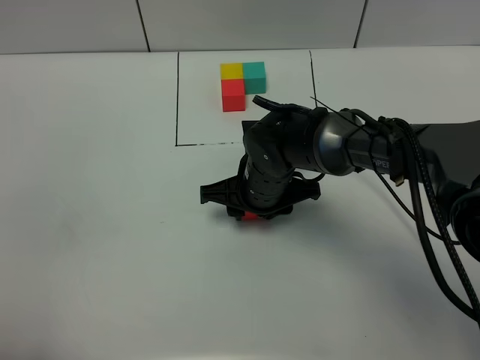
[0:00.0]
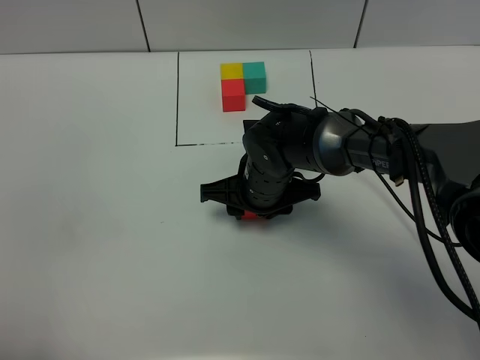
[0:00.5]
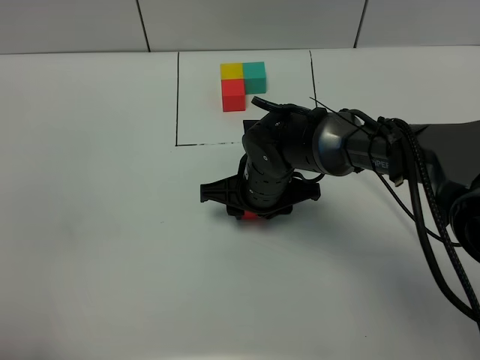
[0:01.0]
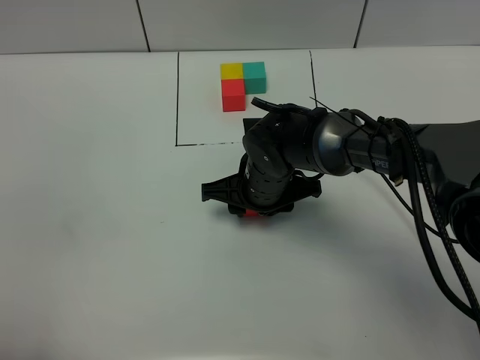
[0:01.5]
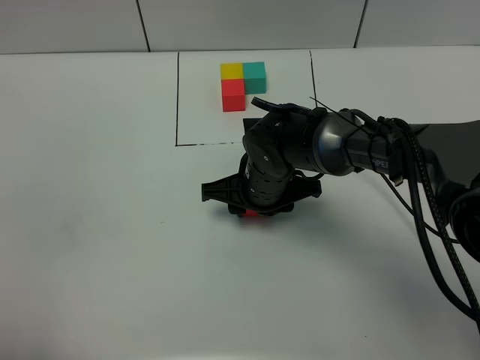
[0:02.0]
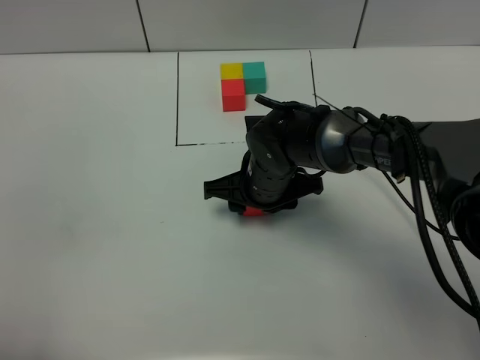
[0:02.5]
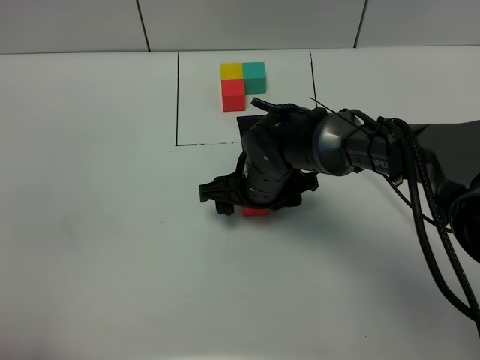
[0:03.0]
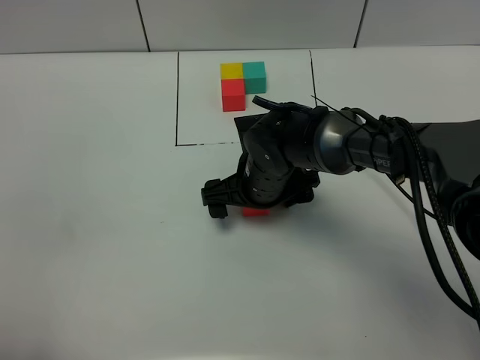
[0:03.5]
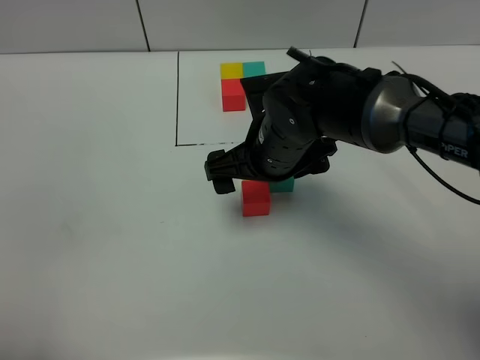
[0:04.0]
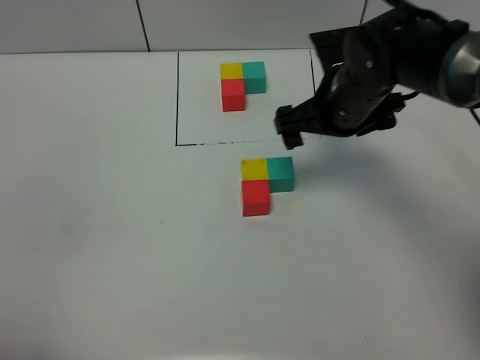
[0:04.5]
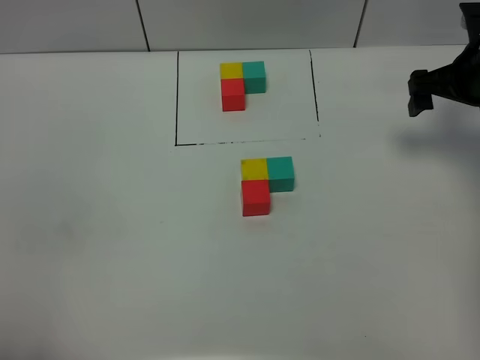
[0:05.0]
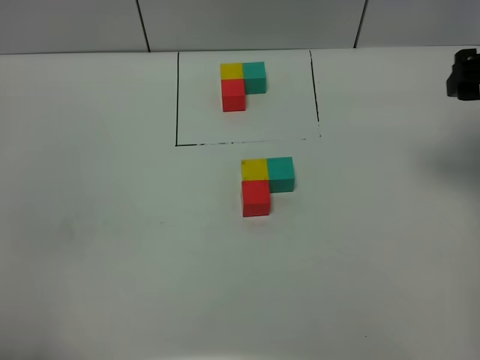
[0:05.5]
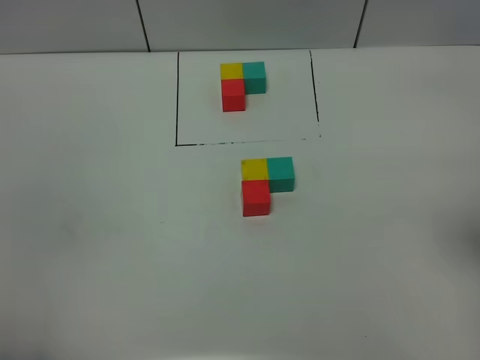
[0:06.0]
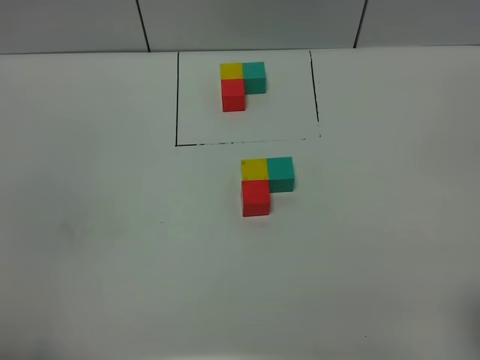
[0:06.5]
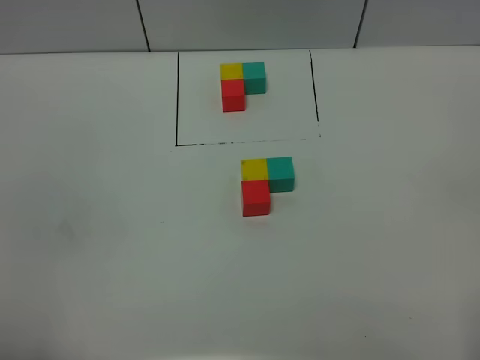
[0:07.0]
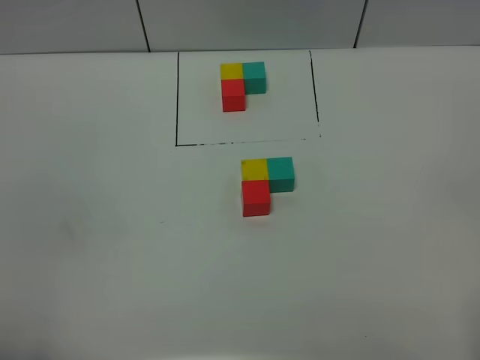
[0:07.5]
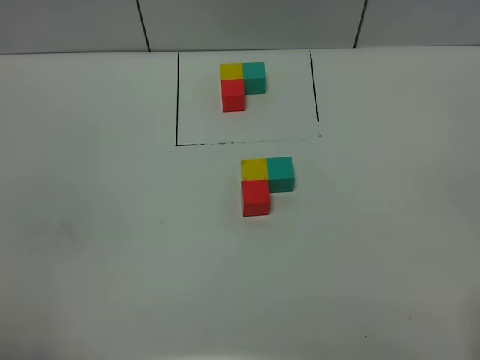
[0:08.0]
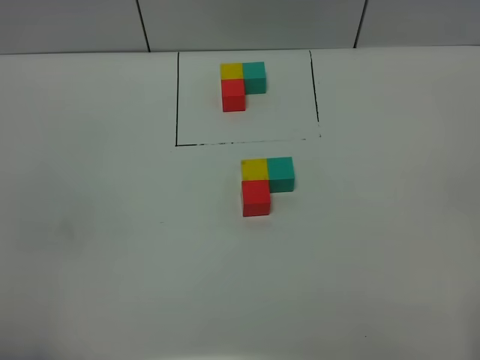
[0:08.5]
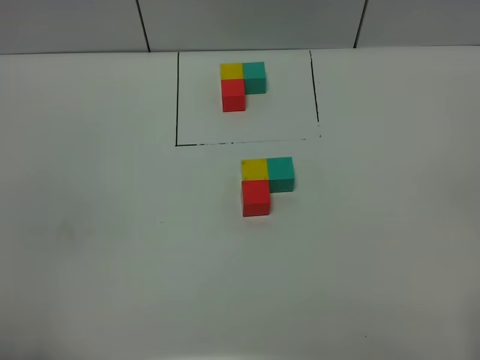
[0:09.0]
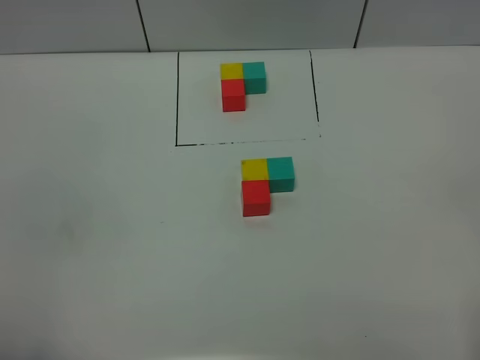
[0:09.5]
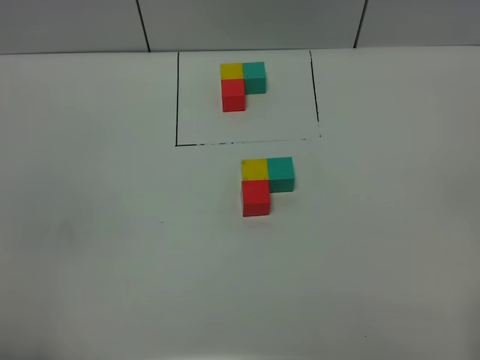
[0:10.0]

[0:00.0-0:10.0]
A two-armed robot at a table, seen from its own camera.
Task of the whole recording: According to the building block template in front, assemble the scattered blocks together.
Step, 0:00.0 to 0:03.0: Put the red build block on the behind of the yellow build block.
0:00.0 to 0:02.0: Both grippers stay put.
0:02.0 to 0:04.0: The right gripper shifts some 10 cm upward, and opens.
0:04.0 to 0:06.0: The right gripper shifts some 30 cm to the right, backward and upward.
0:08.0 to 0:10.0: Both grippers stay about where they are.

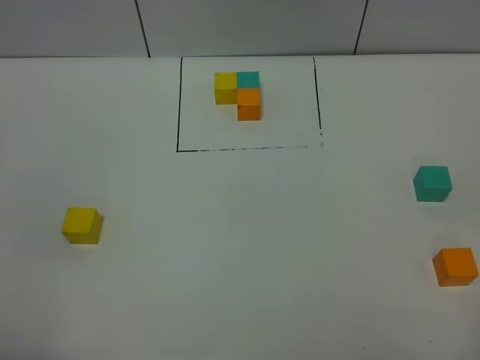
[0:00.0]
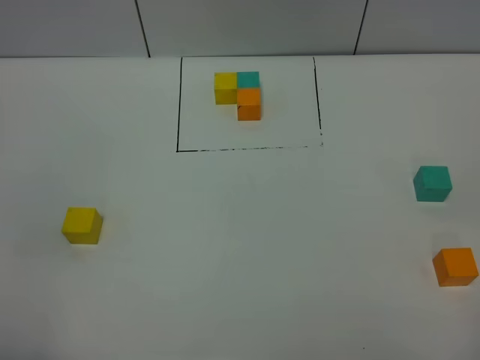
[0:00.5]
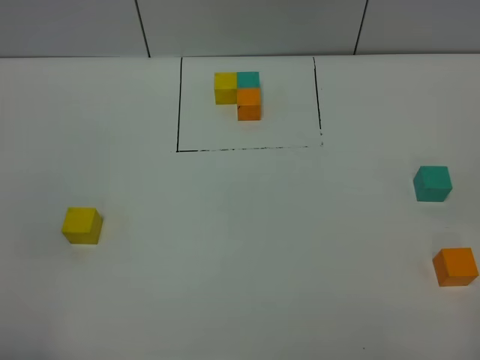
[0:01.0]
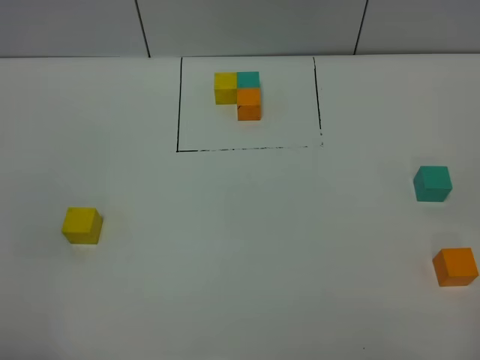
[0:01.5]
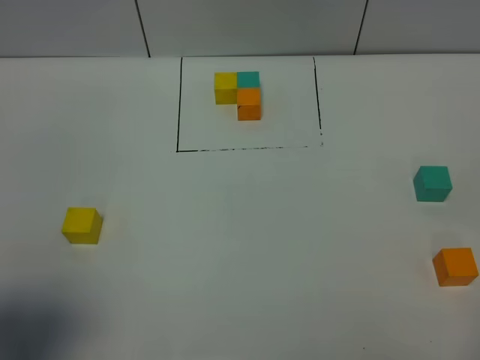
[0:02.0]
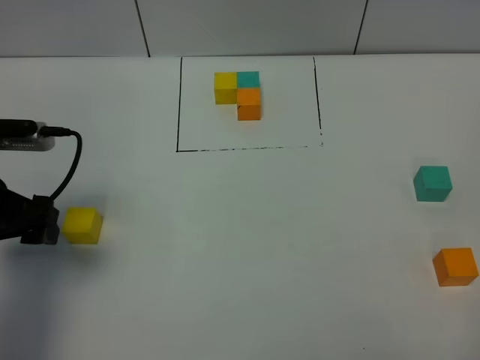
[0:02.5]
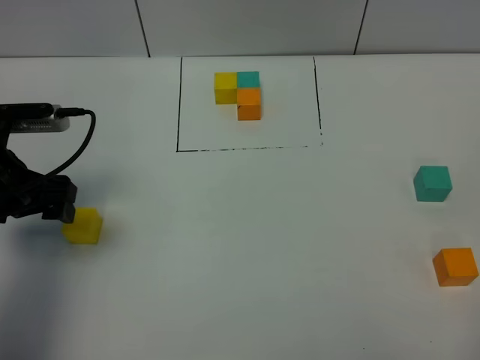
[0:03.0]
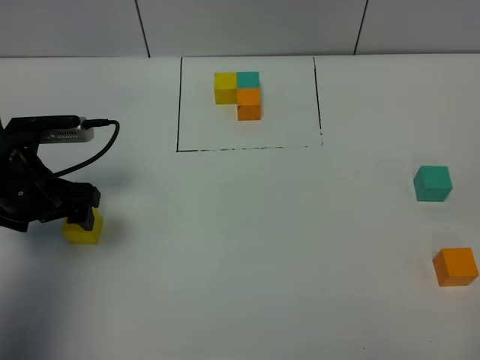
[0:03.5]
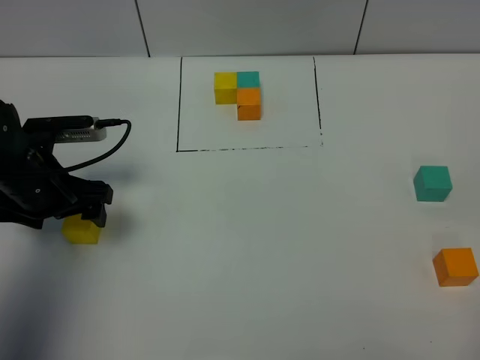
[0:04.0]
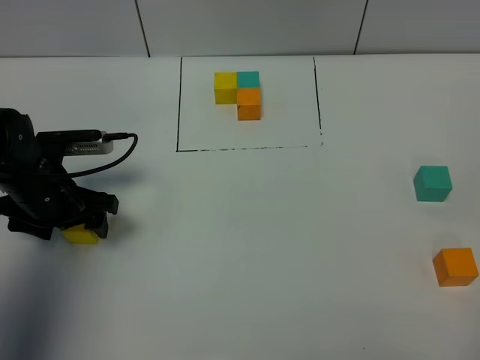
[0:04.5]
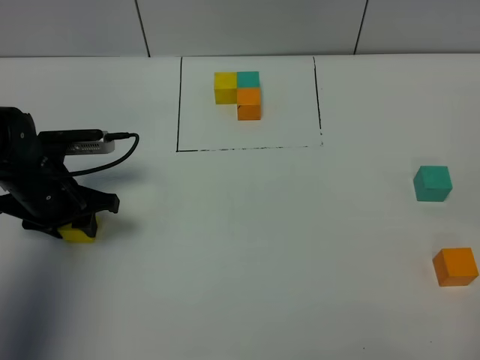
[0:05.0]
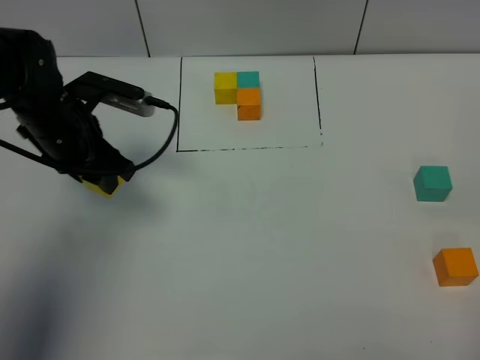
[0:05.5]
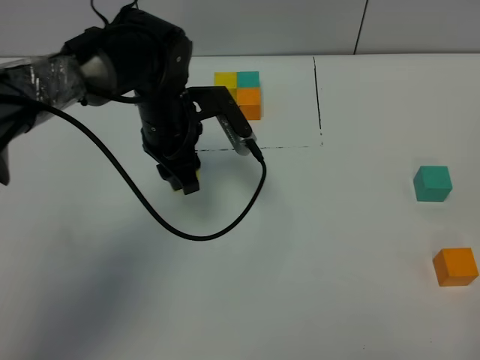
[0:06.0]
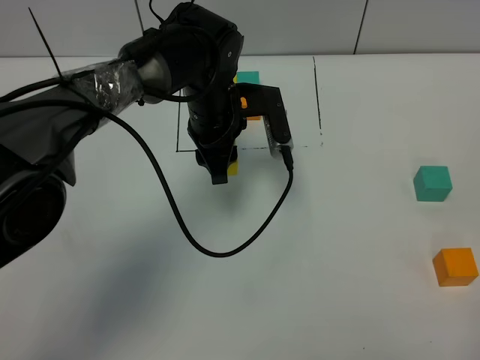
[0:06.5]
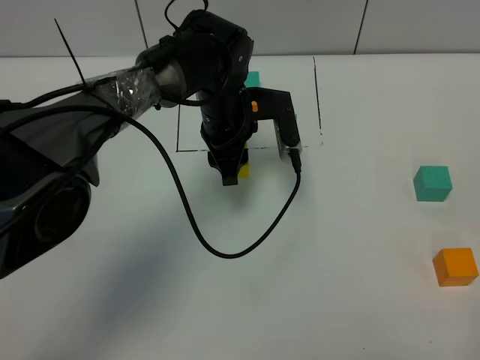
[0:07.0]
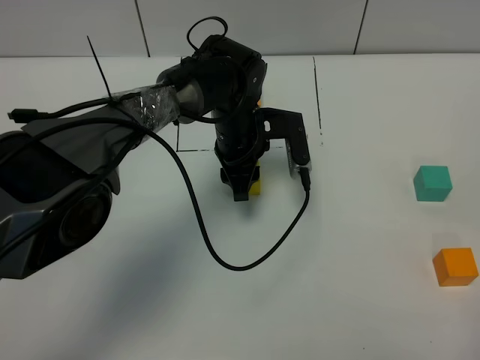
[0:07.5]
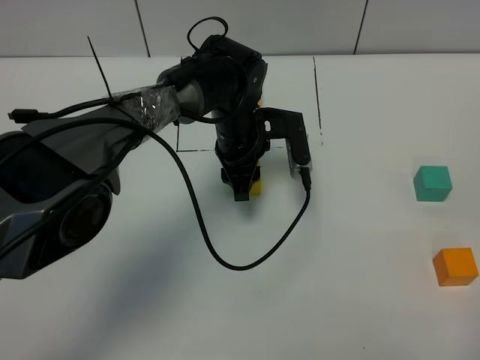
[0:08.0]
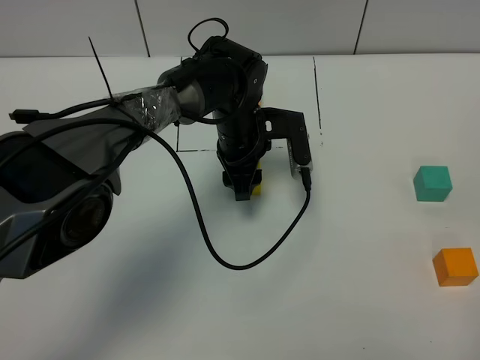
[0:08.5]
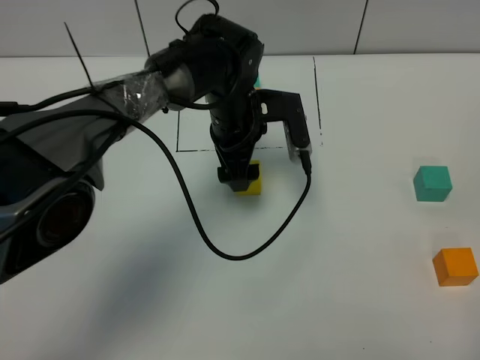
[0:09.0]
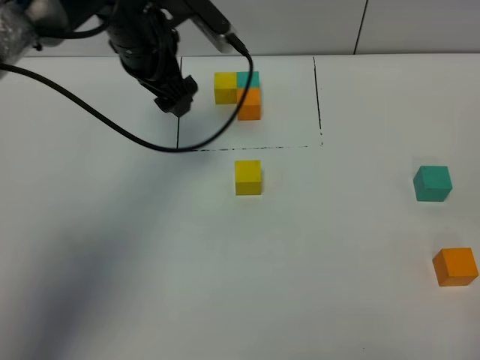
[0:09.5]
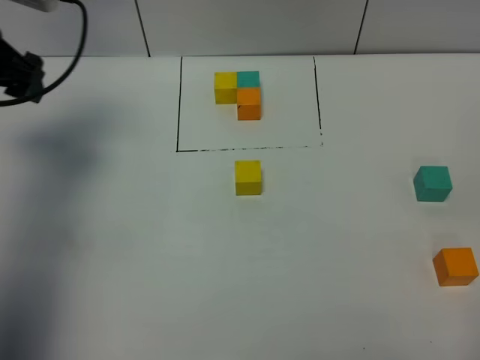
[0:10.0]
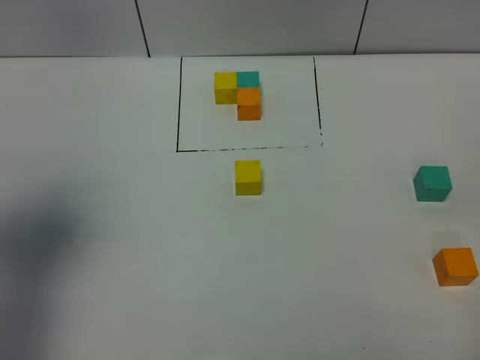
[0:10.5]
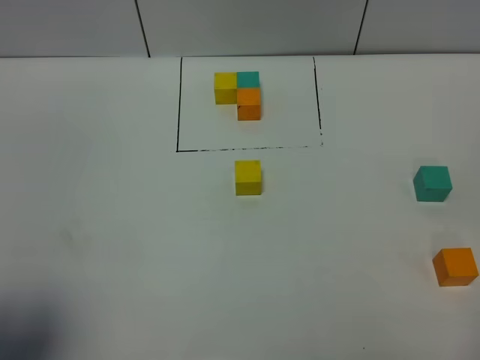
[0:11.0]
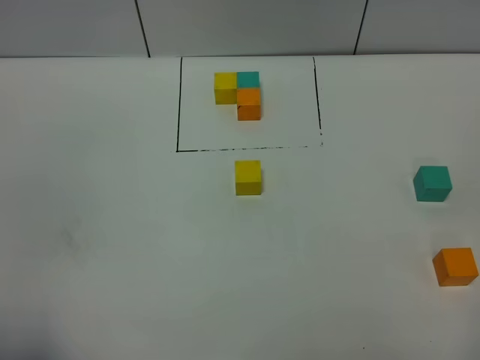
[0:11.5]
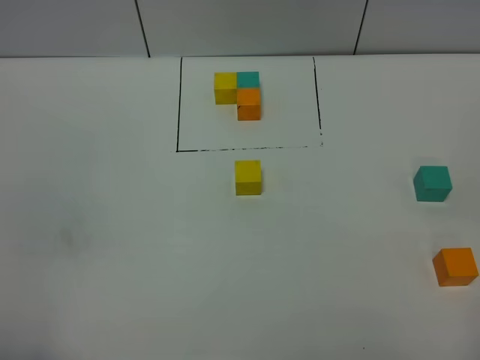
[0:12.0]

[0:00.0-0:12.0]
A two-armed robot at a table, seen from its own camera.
Task of the whole recording: According to the building block template in front, assemble the scattered blocks together.
Step, 0:00.0 to 0:08.0: Put the yellow build block in the center of the table.
0:00.0 to 0:02.0: The left gripper travels forward by about 10 cm.
0:02.0 to 0:04.0: The left gripper moves forward and downward, about 25 cm.
0:04.0 to 0:06.0: The left gripper is displaced to the right and forward by about 20 cm, and closes up.
0:06.0 to 0:08.0: The left gripper heads to the right and downward, covering approximately 10 cm.
0:08.0 to 0:10.0: The left gripper moves to the left and upward, roughly 35 cm, and opens.
0:10.0 to 0:12.0: The left gripper moves backward, roughly 40 cm.

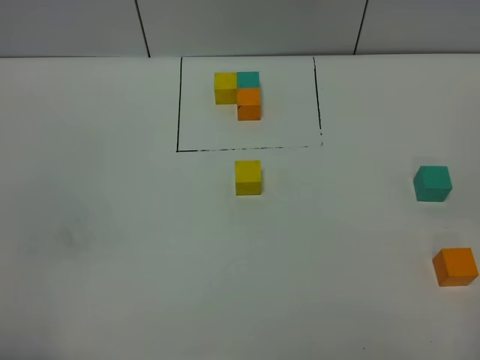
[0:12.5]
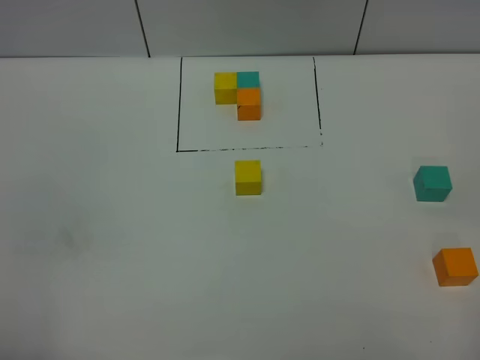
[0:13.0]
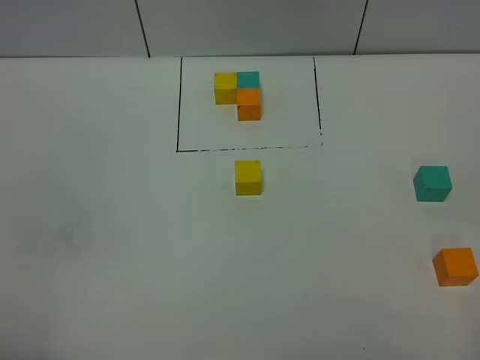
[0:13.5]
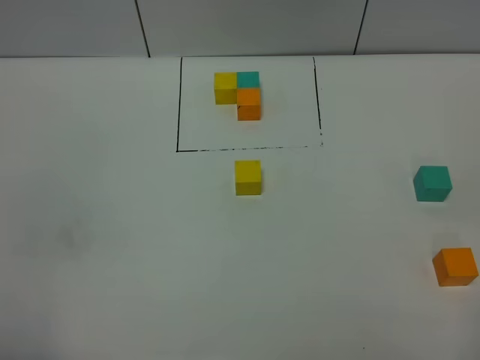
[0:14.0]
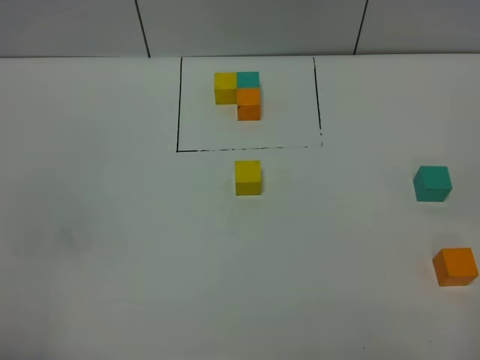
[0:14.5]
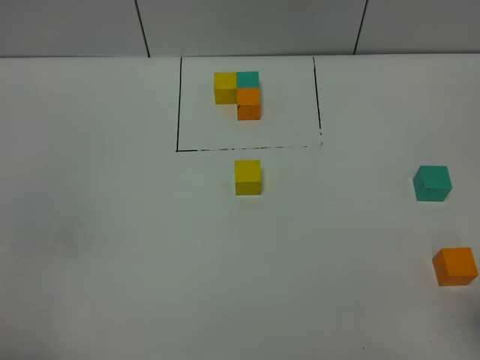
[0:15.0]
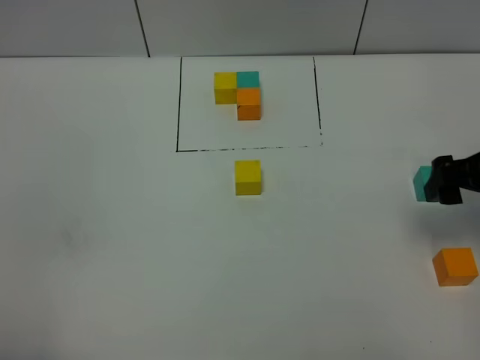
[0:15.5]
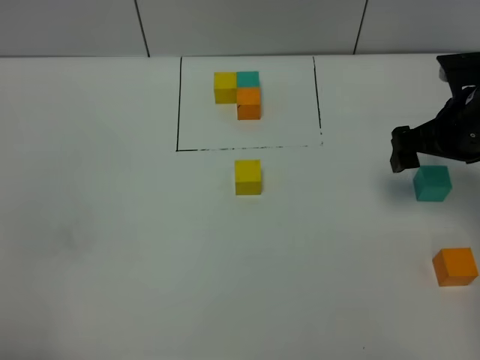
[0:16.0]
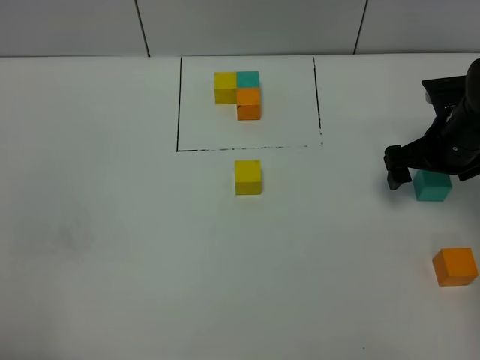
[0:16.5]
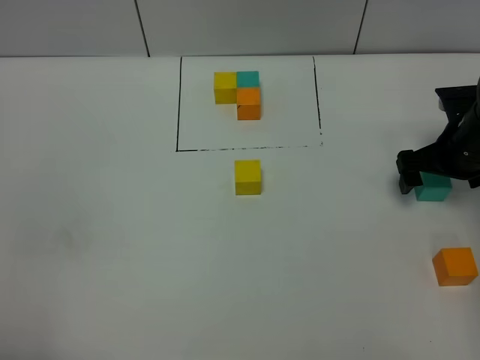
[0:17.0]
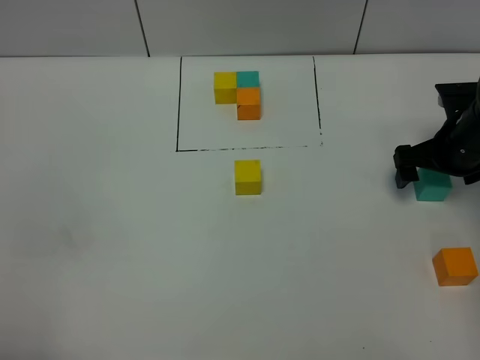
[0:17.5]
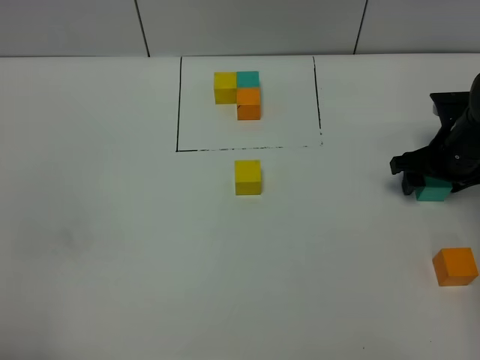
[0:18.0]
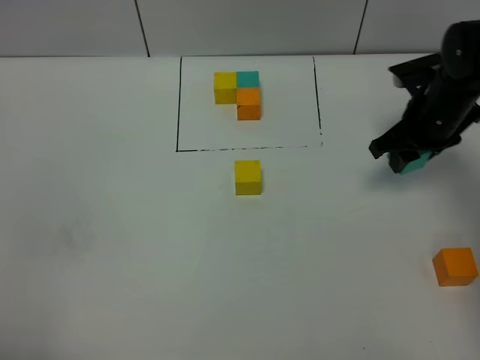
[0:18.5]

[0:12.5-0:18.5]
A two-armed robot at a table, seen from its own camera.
Task of the whole recording: According to the building block template in front, assemble the scattered blocks together.
0:12.5 to 0:14.5: Neither gripper changes place.
0:14.5 to 0:16.5: The right gripper shifts roughly 35 cm forward.
0:16.5 to 0:18.5: The right gripper ends up roughly 5 cm from where it was, and closes its fingers.
